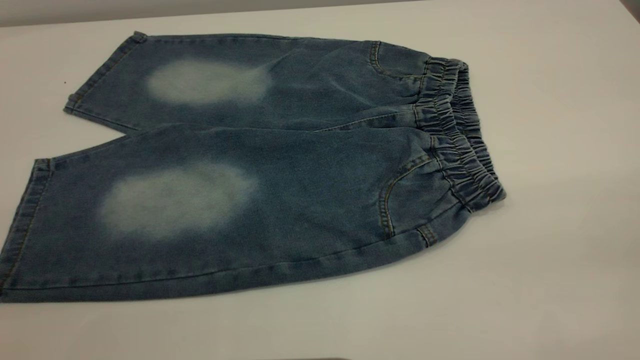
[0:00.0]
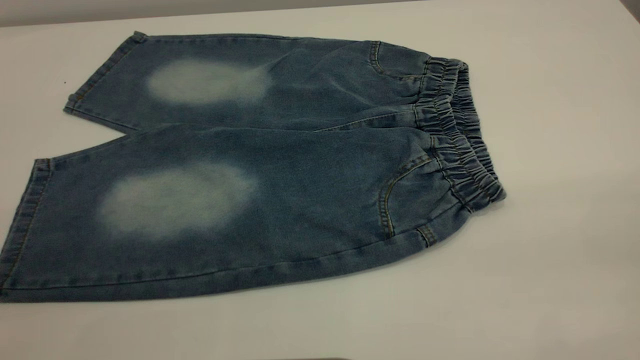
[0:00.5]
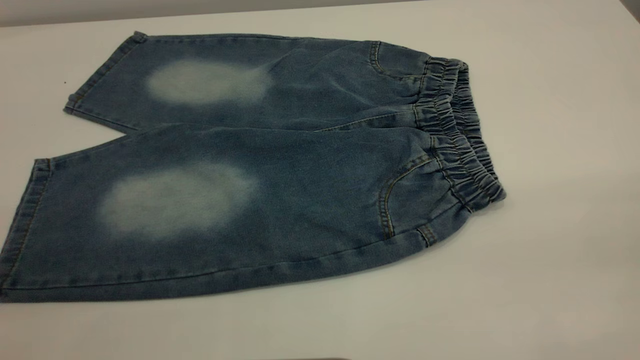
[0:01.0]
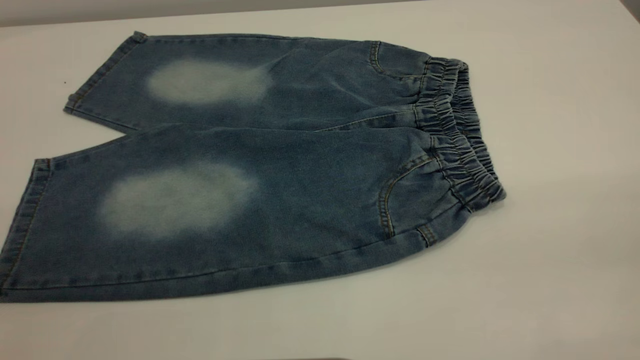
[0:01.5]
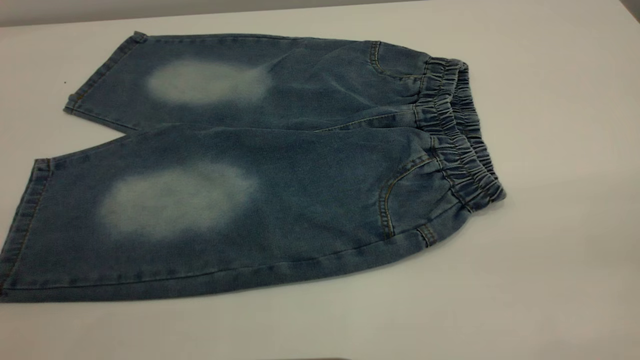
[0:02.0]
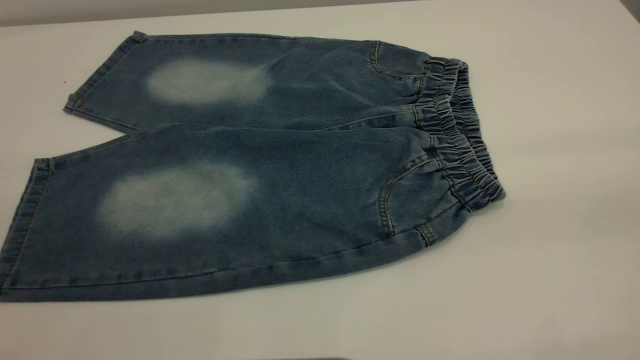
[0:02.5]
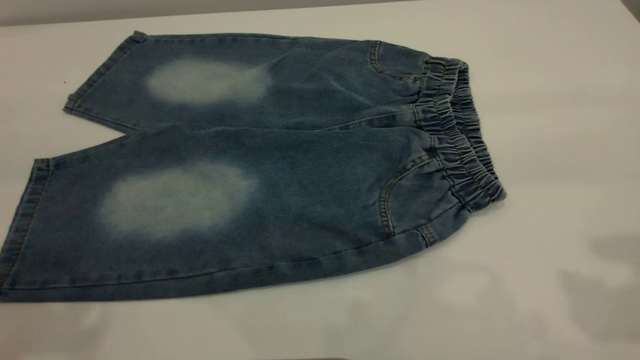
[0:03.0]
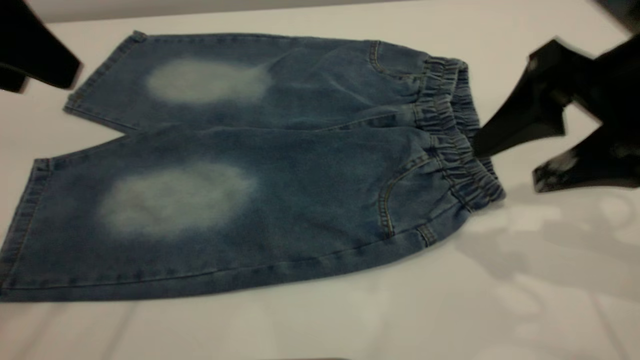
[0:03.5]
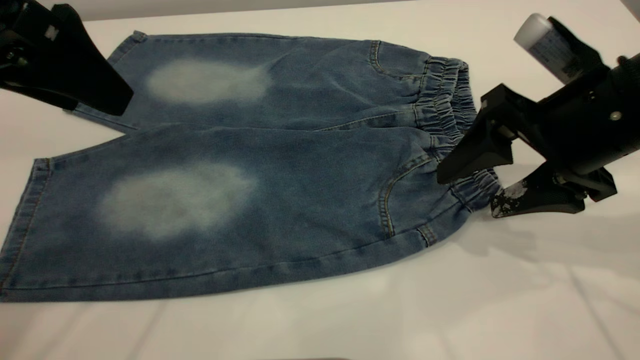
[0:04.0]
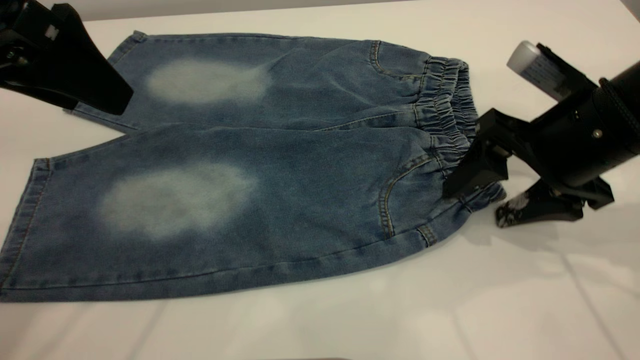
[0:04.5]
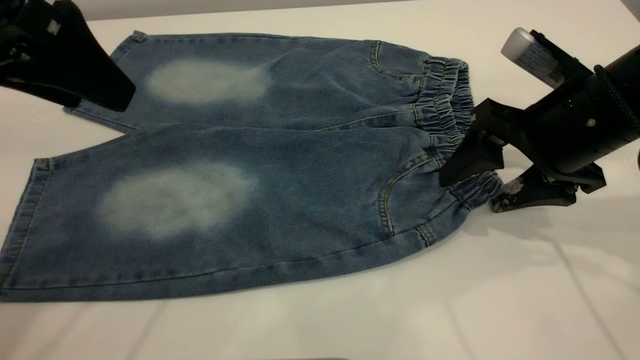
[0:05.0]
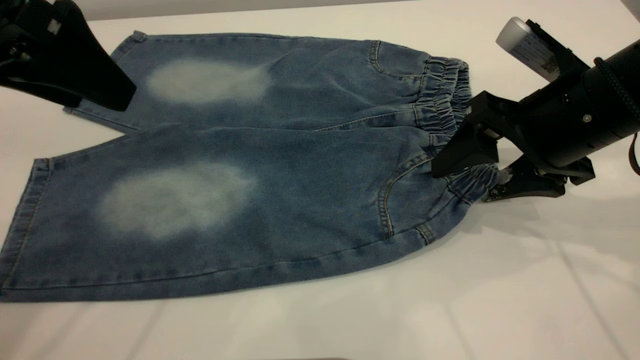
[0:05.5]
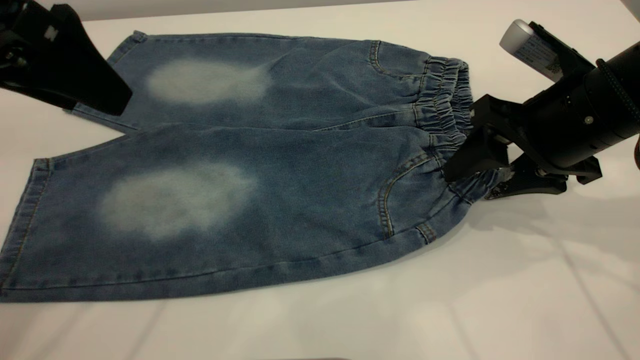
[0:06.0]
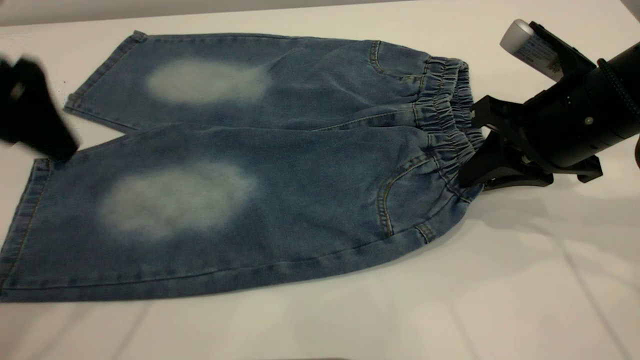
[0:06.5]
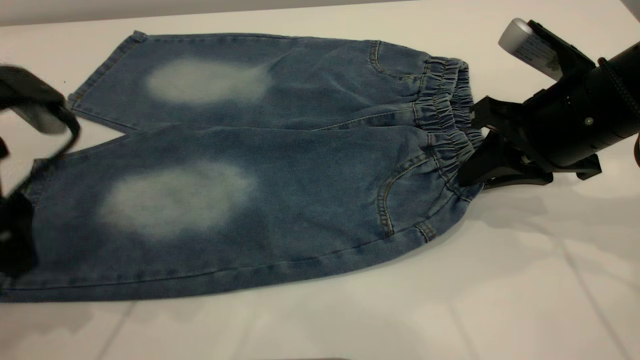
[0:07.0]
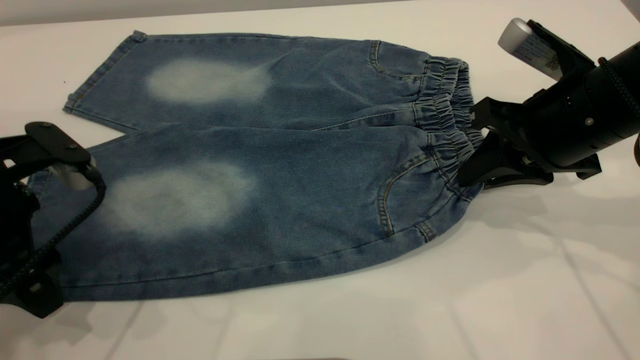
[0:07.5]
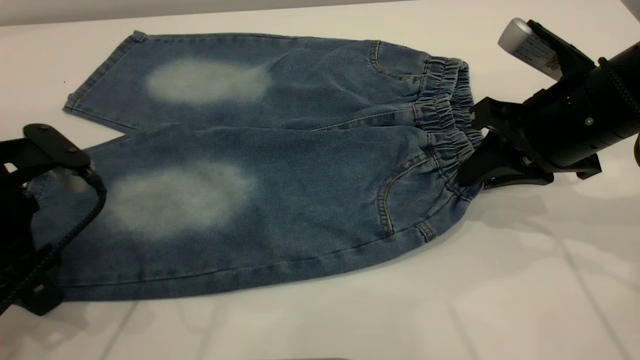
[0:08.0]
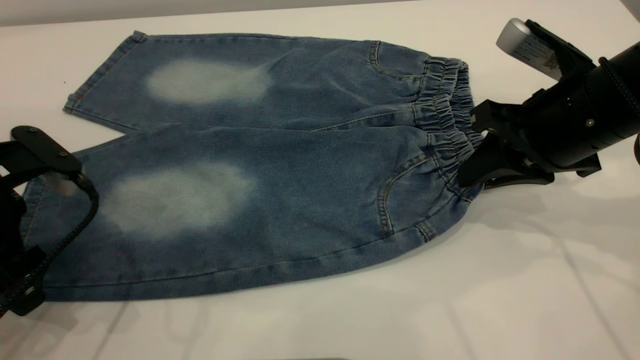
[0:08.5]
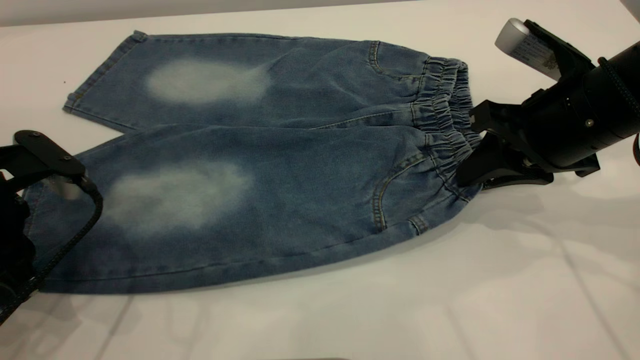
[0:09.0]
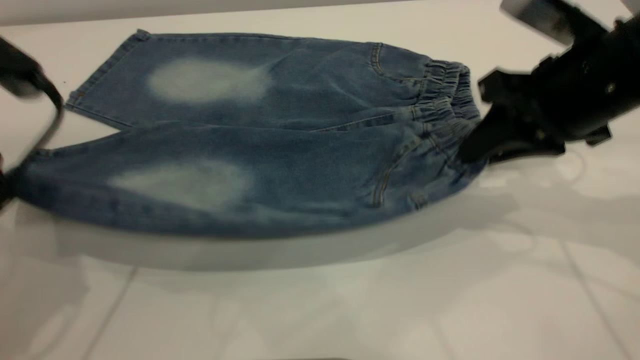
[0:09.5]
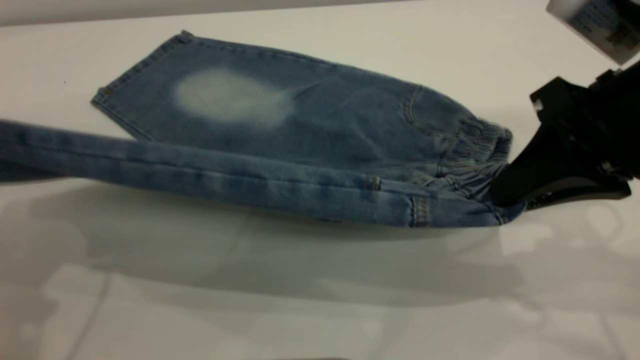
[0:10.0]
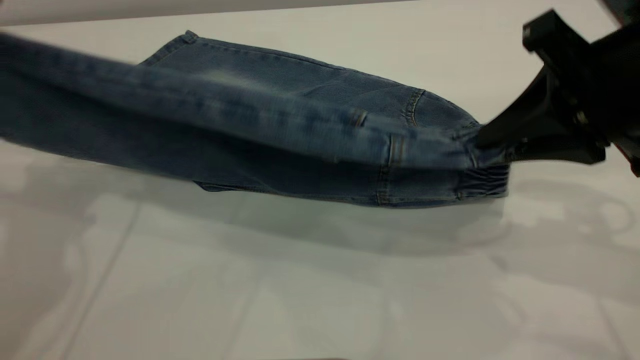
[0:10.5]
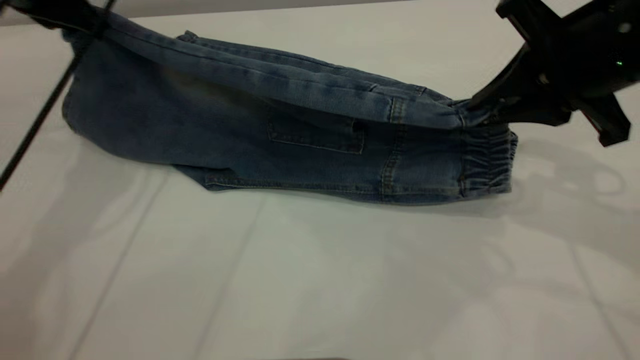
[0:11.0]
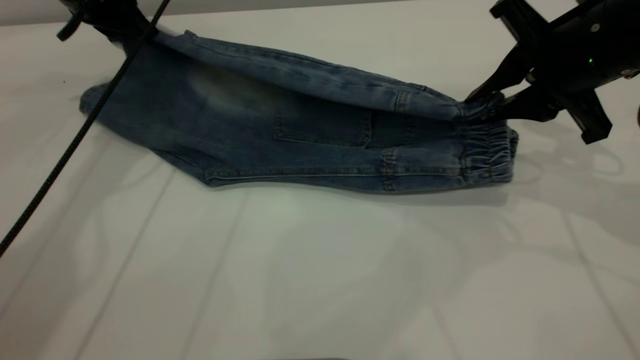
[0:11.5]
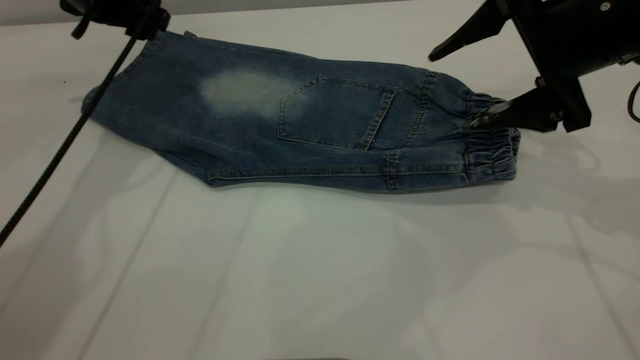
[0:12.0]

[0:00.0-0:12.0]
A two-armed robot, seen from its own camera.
Step, 0:00.0 to 0:11.5: Fold the bottom of the pants upward.
0:00.0 to 0:02.0: Neither gripper changes place.
0:02.0 to 0:04.0: The left gripper travels forward by roughly 25 cm; the right gripper travels forward and downward by about 35 cm.
0:04.0 to 0:06.0: There are only small adjustments of the grippers.
0:06.0 to 0:08.0: The right gripper closes its fingers; the left gripper travels downward by roughly 15 cm.
0:08.0 to 0:10.0: The right gripper moves backward and upward, about 10 cm; the left gripper is displaced upward by some 15 cm, and closes its fingers.
0:10.0 to 0:12.0: The right gripper goes approximately 10 cm forward, and opens its fingers. Meanwhile the left gripper shifts roughly 25 cm forward, and opens up.

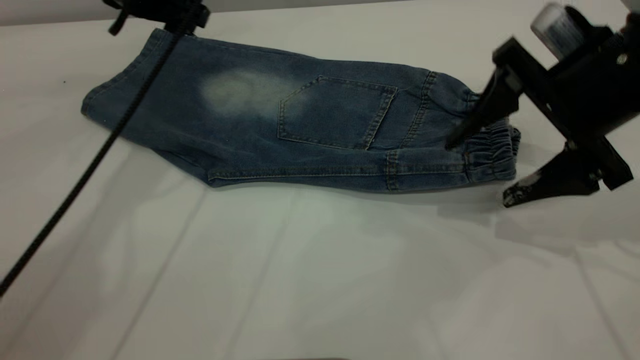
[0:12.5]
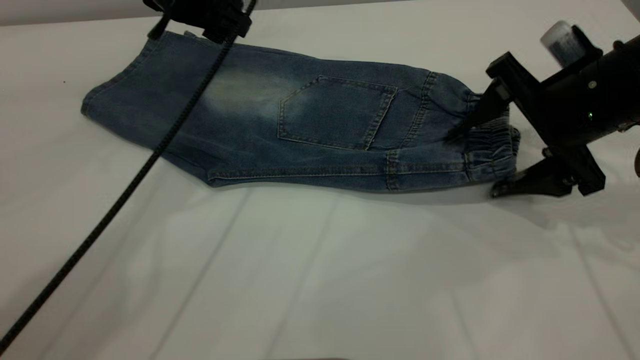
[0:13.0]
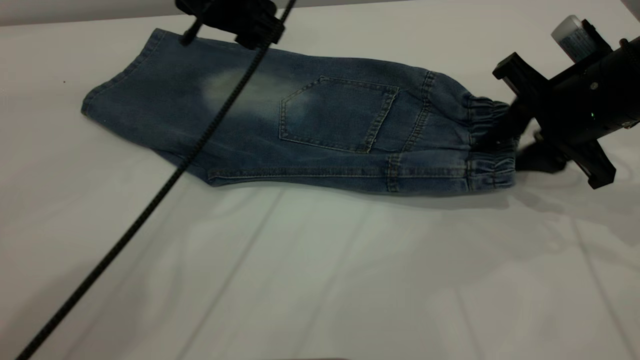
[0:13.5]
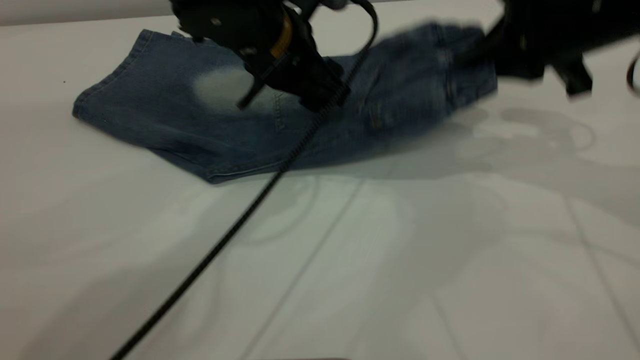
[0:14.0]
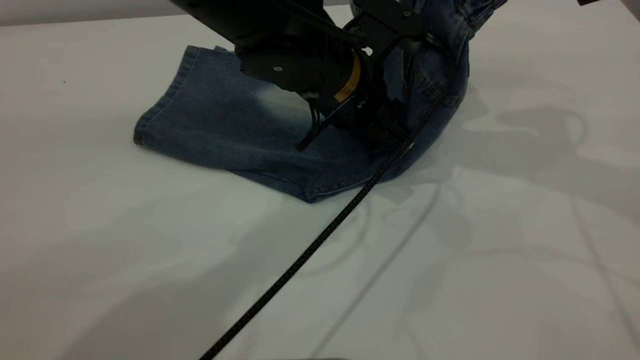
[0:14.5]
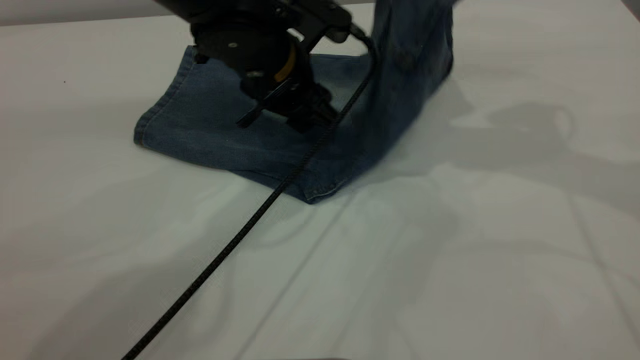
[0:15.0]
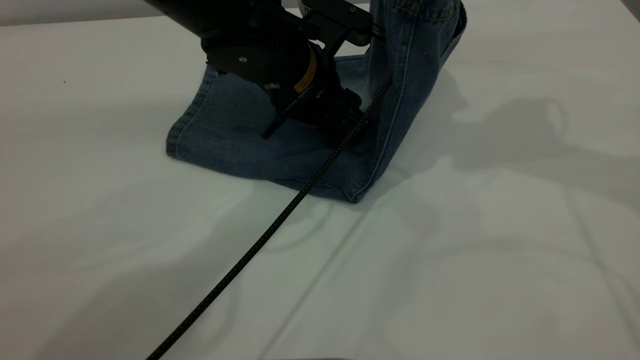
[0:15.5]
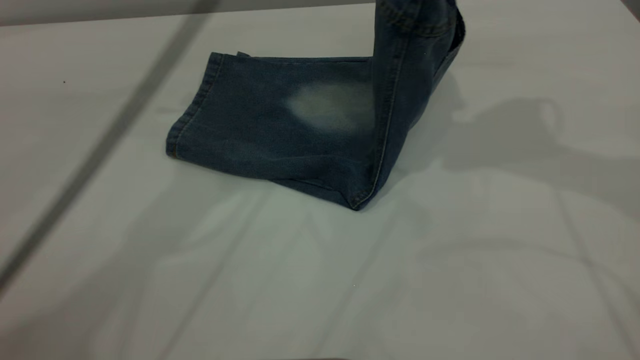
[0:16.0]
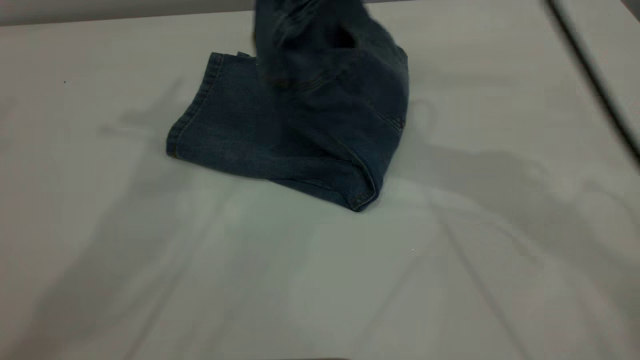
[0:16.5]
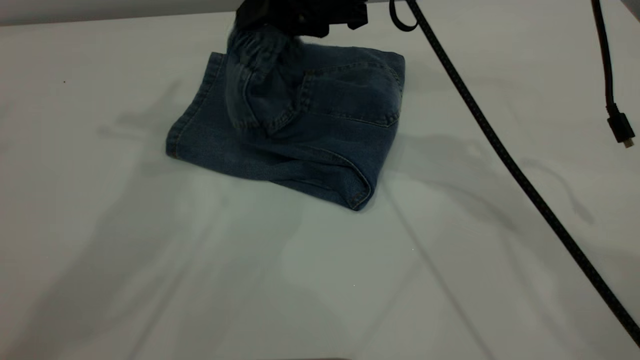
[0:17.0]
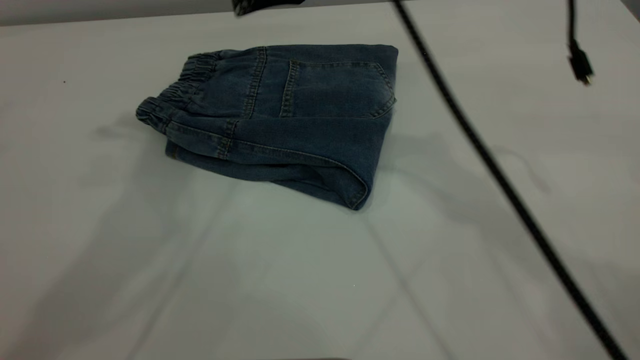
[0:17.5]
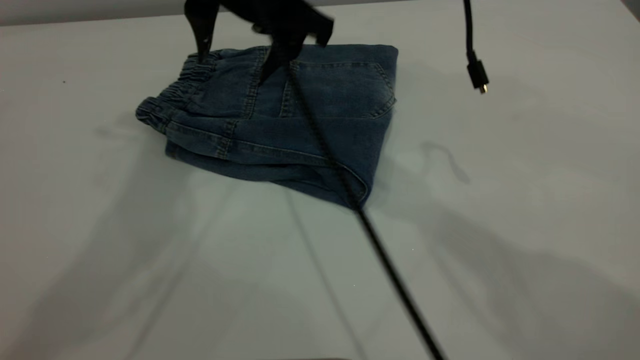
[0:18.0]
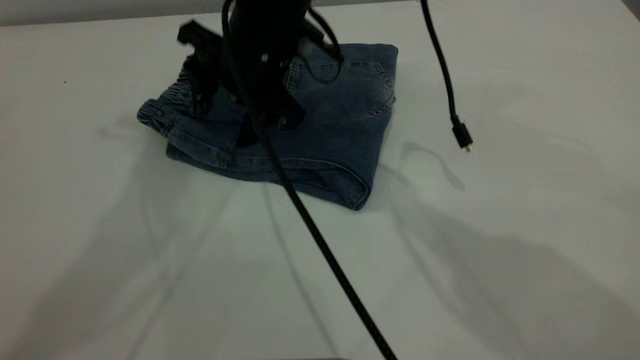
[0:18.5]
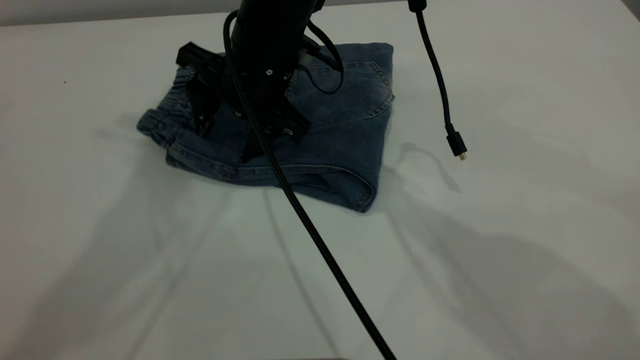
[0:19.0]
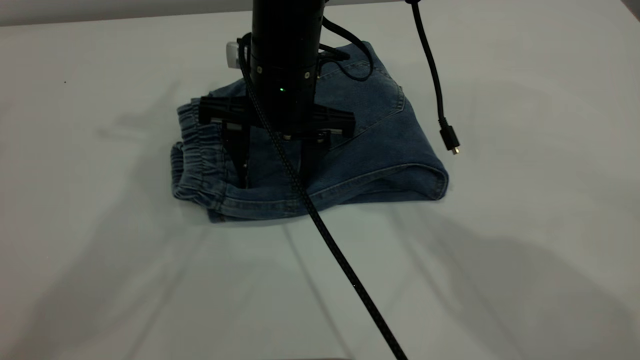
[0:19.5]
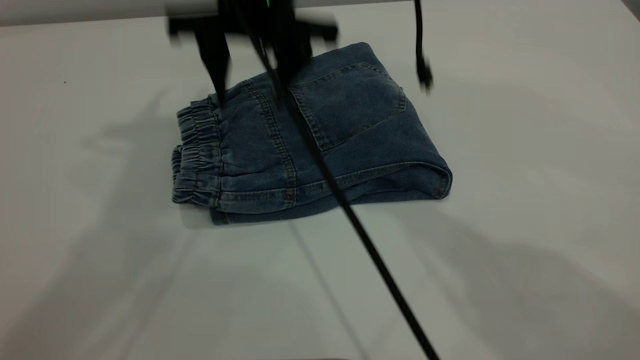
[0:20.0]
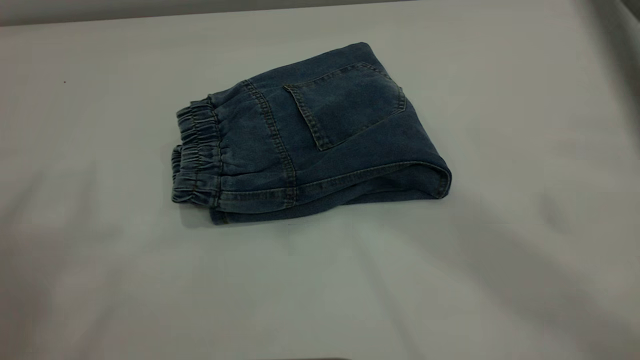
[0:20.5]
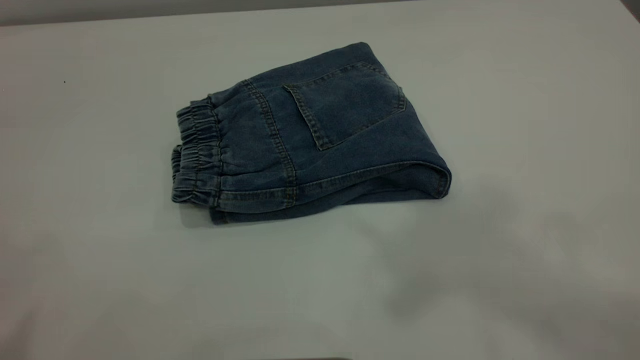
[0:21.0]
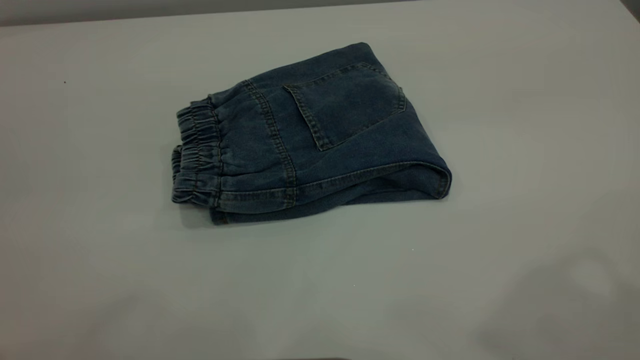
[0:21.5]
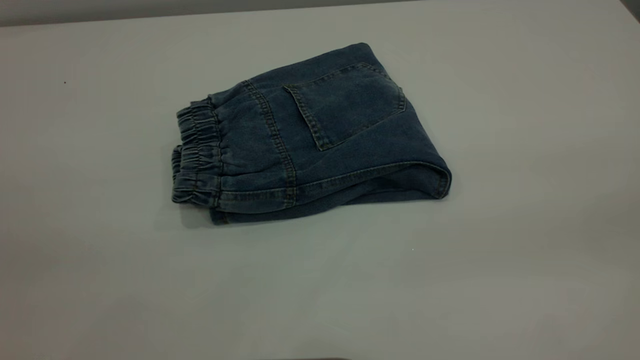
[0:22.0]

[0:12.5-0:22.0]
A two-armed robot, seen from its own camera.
Step, 0:12.5 to 0:17.0: Fold your pants from right to left.
0:12.5 to 0:14.5: The left gripper is displaced to the right and backward by approximately 20 cm, while the right gripper heads upward, covering approximately 10 cm, and closes up.
0:14.5 to 0:16.5: The left gripper moves upward and to the left, about 35 cm, while the right gripper is displaced to the left by some 15 cm.
0:16.5 to 0:18.0: The right gripper goes approximately 10 cm to the left, and opens up.
0:18.0 to 0:20.0: The left gripper ends up roughly 5 cm from where it was, while the right gripper travels downward and back again, some 10 cm each way.
0:20.0 to 0:22.0: The left gripper shifts approximately 25 cm backward. The right gripper heads backward and to the right, covering roughly 40 cm, and travels upward and back again, approximately 35 cm each way.
